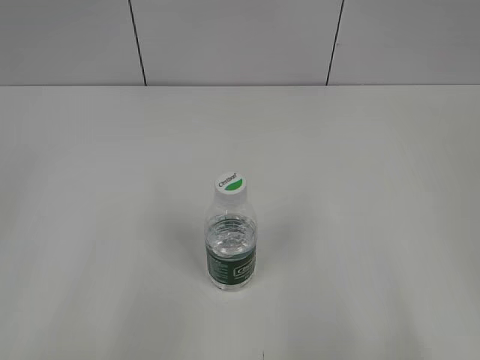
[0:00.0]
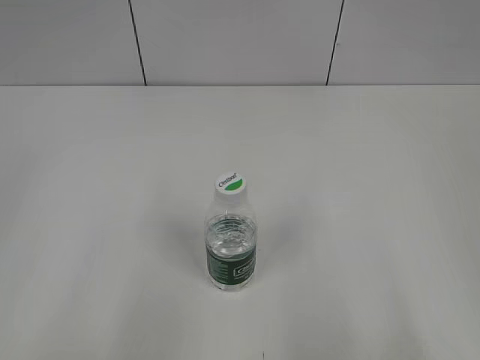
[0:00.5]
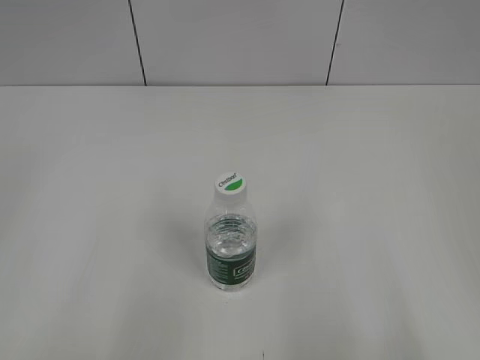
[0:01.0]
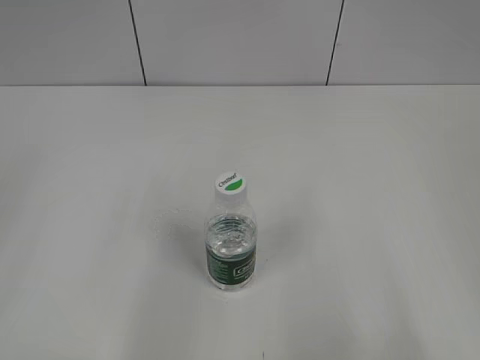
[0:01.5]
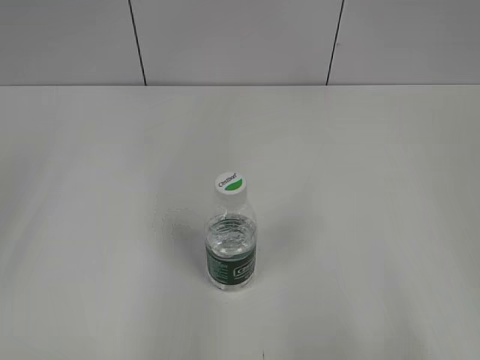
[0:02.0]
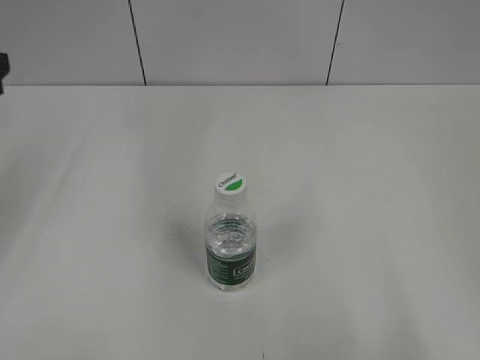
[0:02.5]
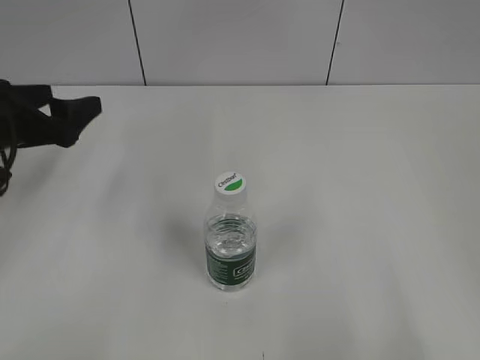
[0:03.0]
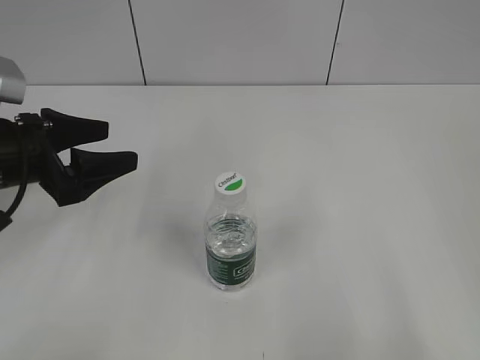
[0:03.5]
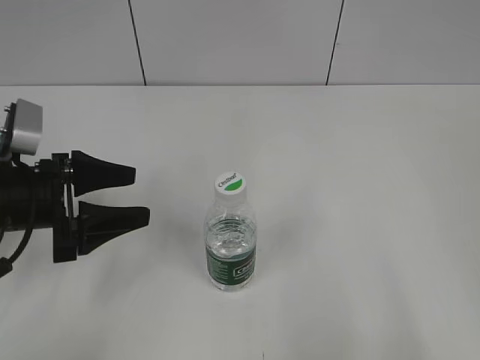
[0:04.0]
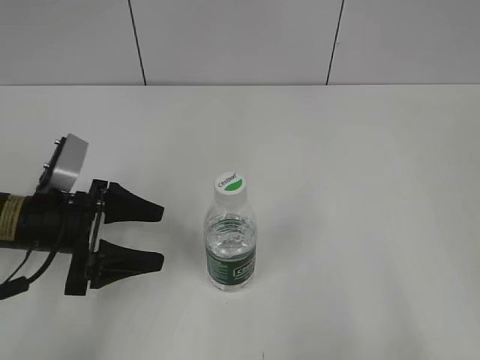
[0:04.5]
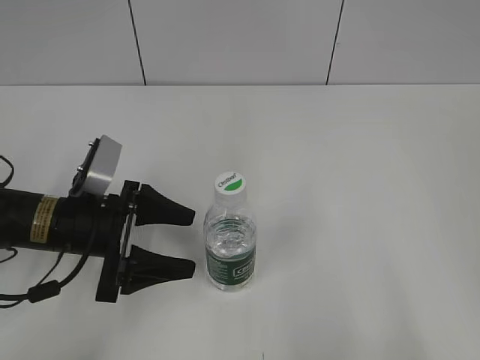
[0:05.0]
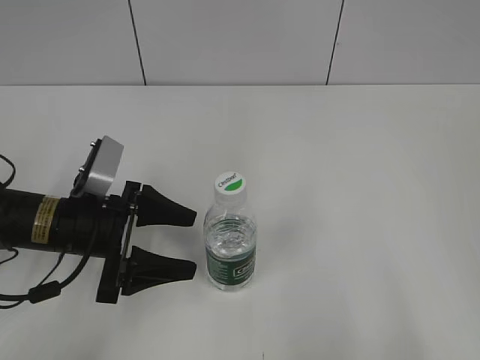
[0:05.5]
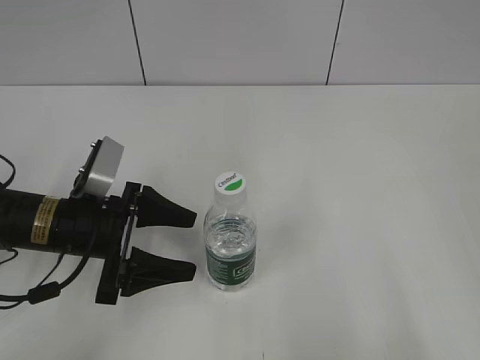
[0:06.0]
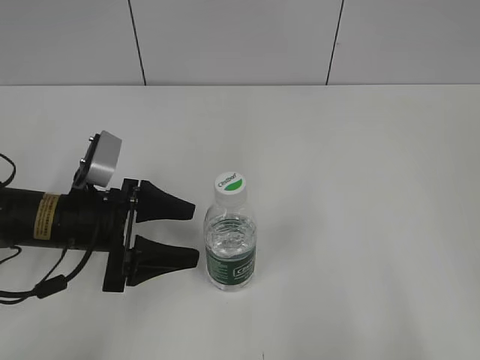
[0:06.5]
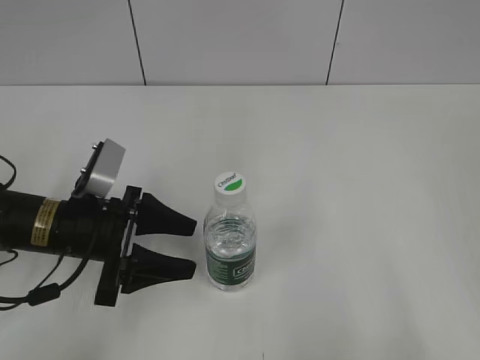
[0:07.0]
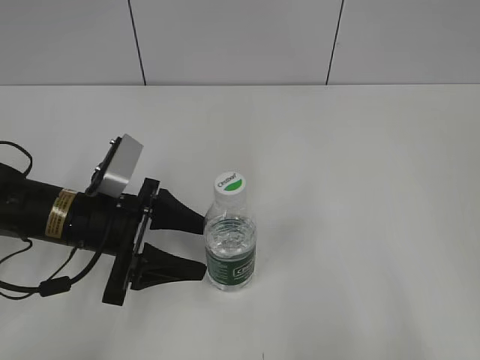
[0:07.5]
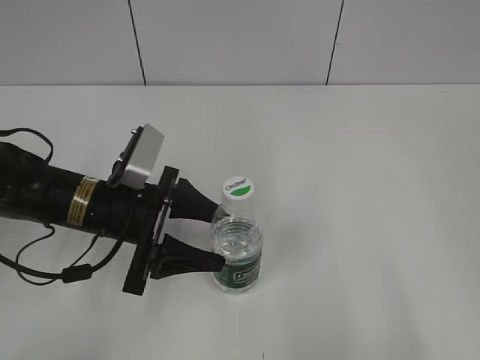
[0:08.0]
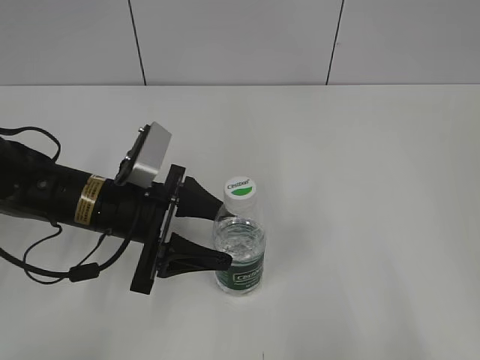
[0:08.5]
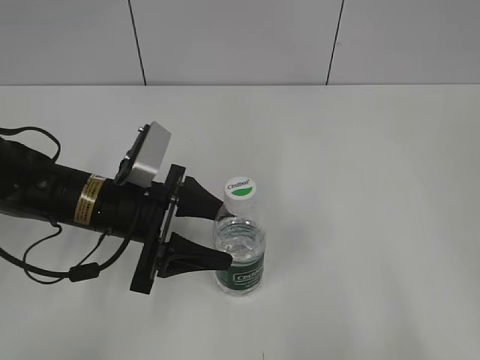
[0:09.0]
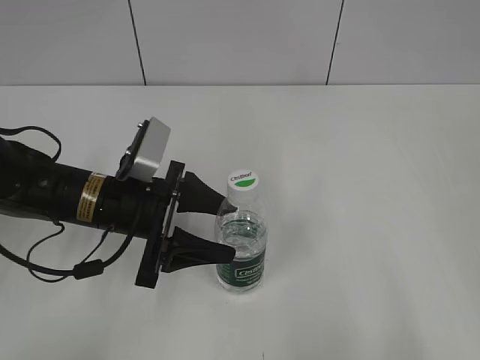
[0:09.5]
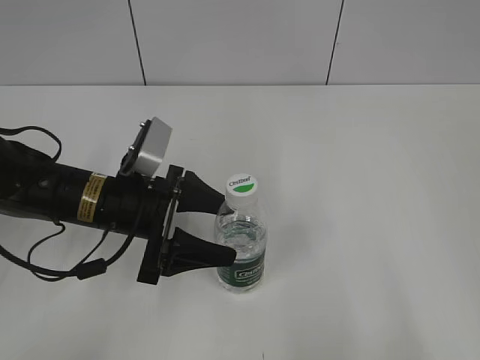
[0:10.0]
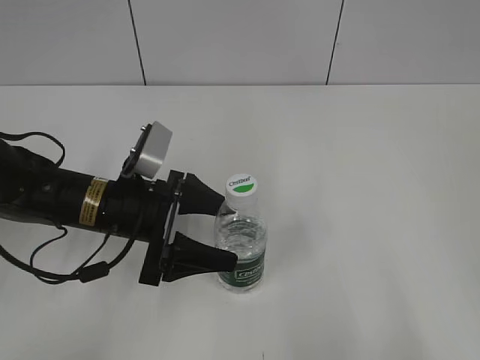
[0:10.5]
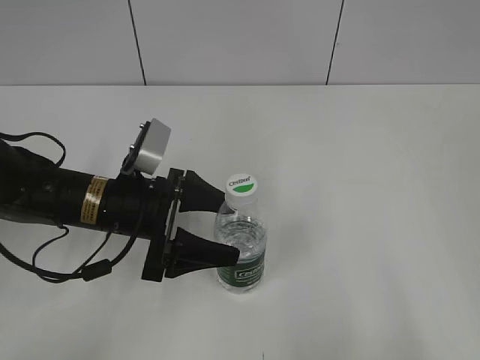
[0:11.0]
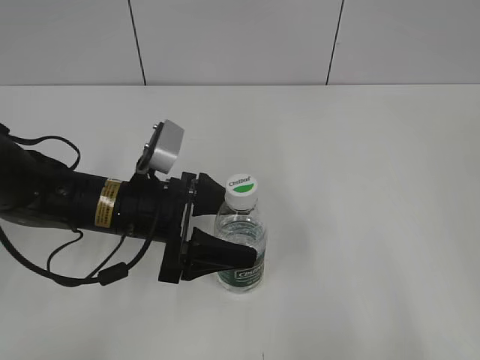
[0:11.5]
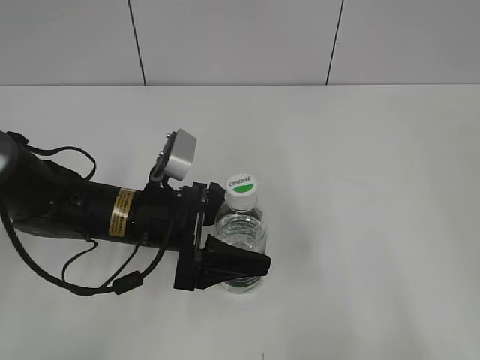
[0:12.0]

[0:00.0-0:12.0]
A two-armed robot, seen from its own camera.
0:02.0 to 0:04.0: The left gripper shifts roughly 20 cm downward and forward.
0:04.0 to 0:06.0: The left gripper moves to the right, about 5 cm.
0:06.0 to 0:10.0: The grippers make only small movements.
0:10.0 to 0:12.0: There are only small adjustments of the grippers.

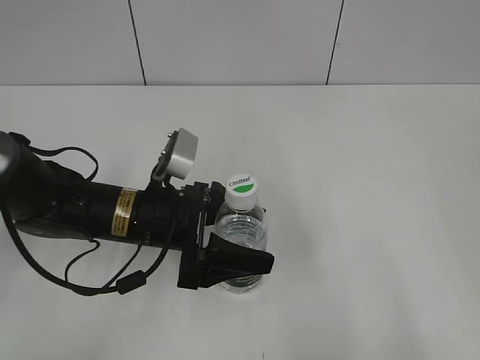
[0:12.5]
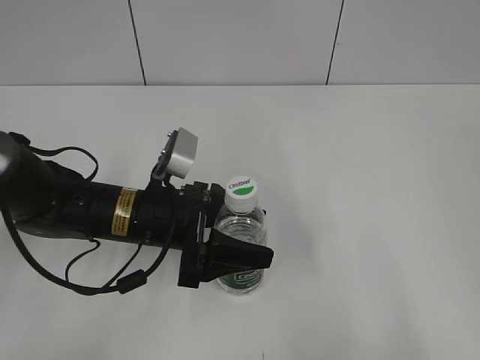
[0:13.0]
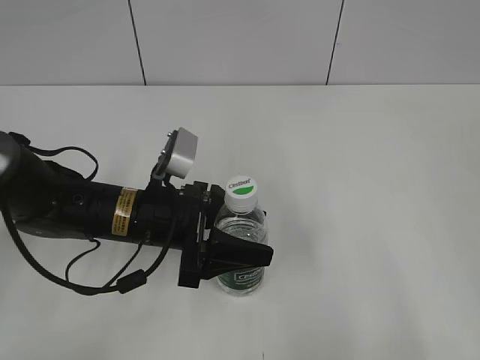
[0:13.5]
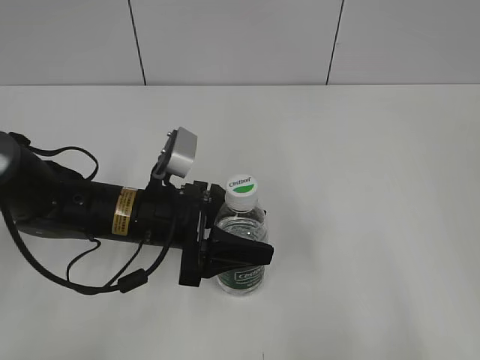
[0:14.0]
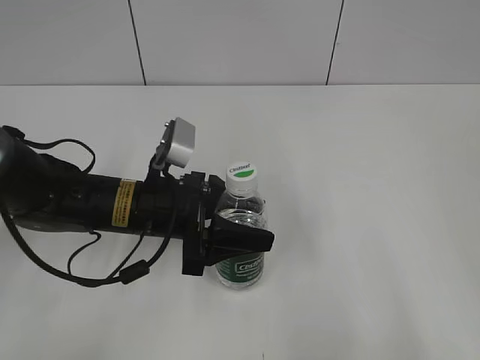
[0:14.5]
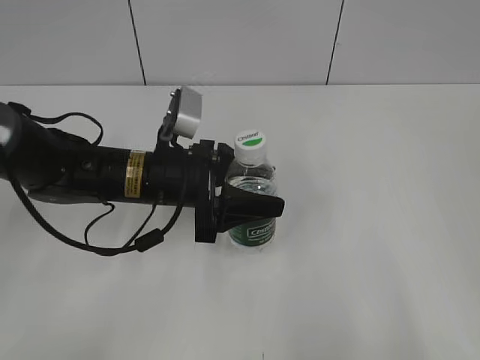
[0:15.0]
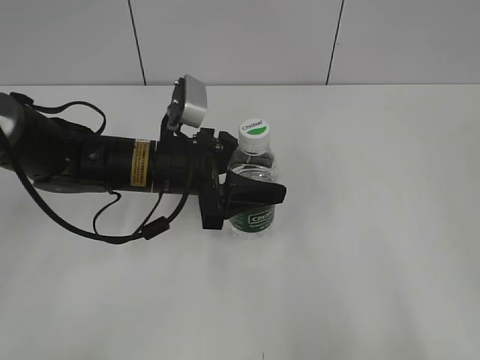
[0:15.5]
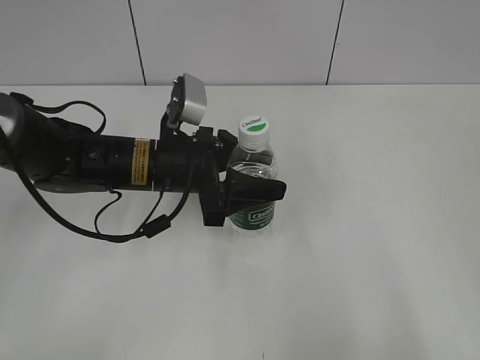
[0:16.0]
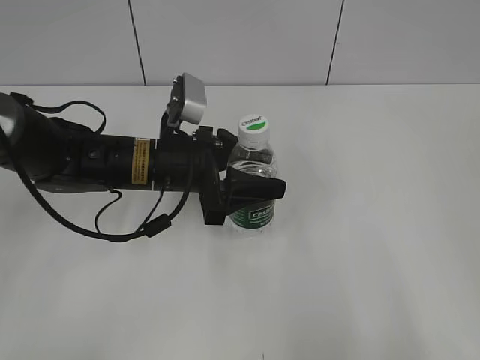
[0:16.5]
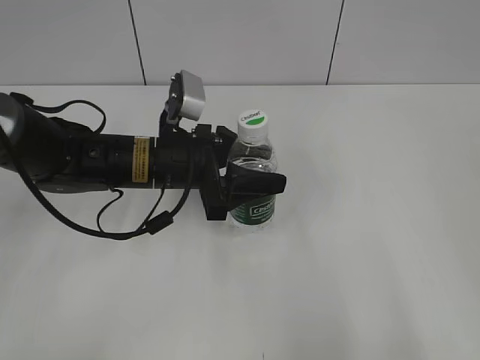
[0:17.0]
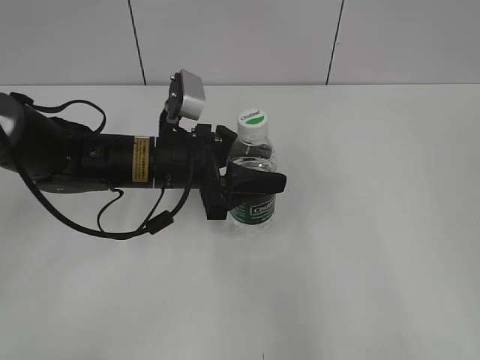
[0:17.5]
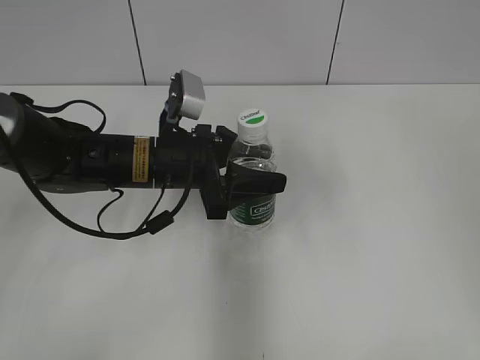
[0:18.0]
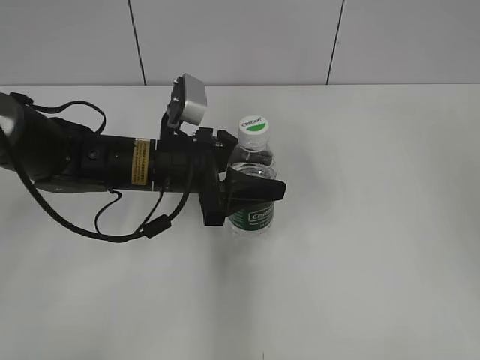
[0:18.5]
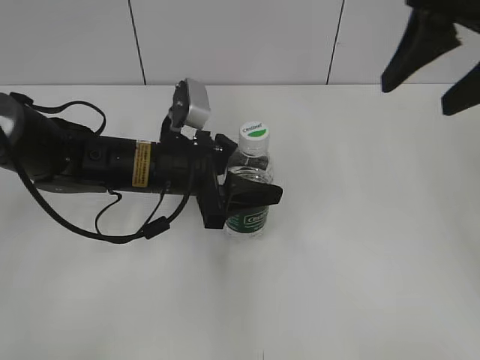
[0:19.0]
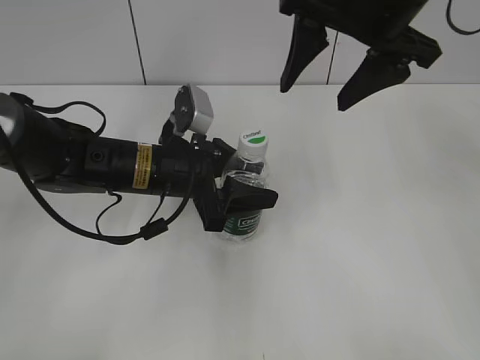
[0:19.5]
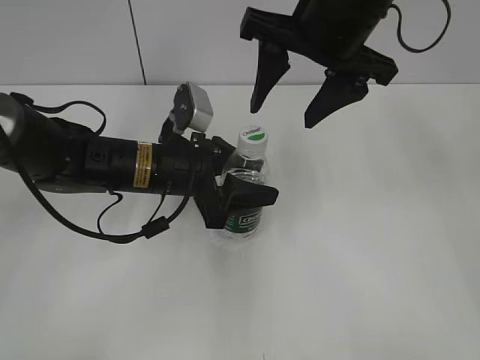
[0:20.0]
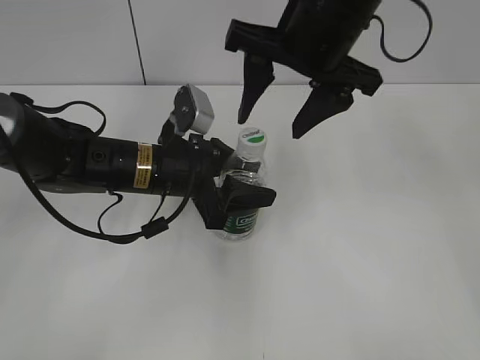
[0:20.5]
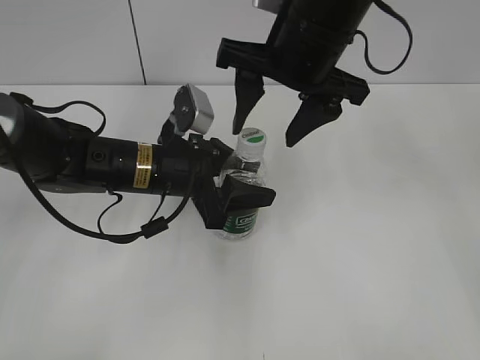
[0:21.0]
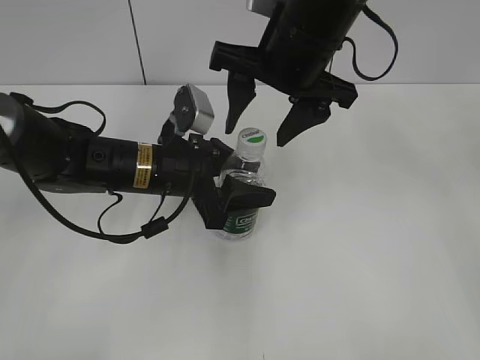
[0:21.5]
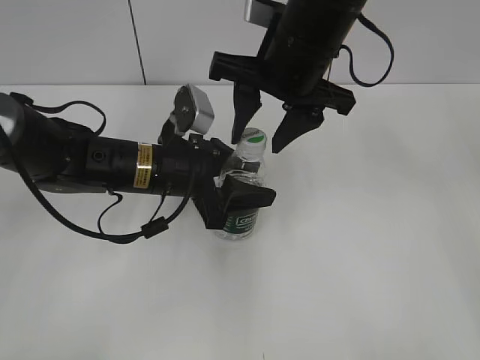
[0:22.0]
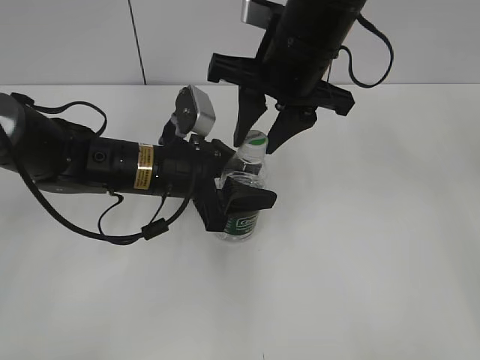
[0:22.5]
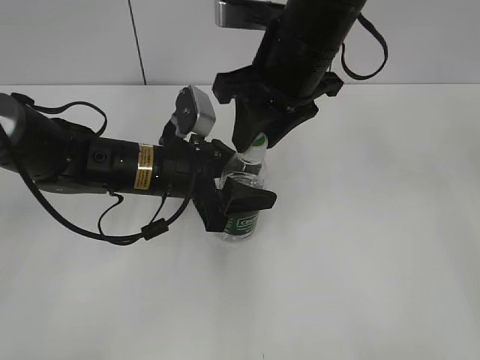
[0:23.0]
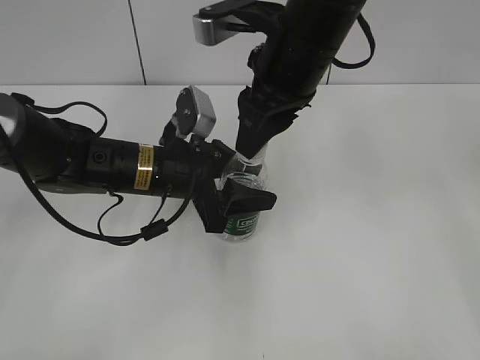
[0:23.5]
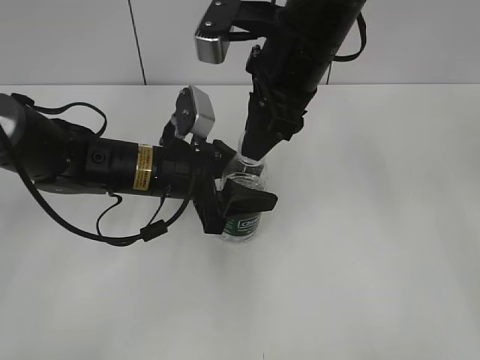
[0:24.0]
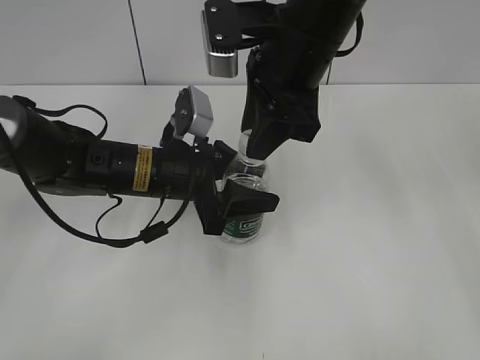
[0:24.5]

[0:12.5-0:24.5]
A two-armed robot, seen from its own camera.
Step, 0:14.0 to 0:19.0: Lift the bottle and move it to the center of the table with the left gripper.
0:12.5 to 0:14.5: The left gripper closes.
0:16.5 to 0:18.5: The right gripper heads forward, covering some 20 cm.
0:18.5 to 0:20.5: The right gripper goes roughly 25 cm to the left and forward.
0:20.5 to 0:22.5: The right gripper closes.

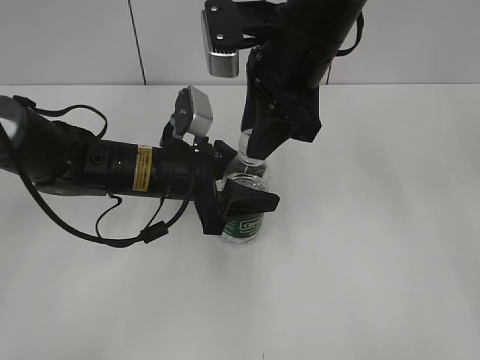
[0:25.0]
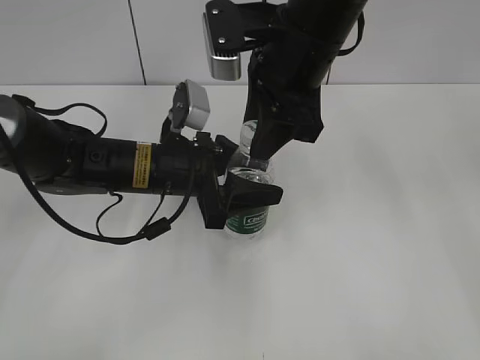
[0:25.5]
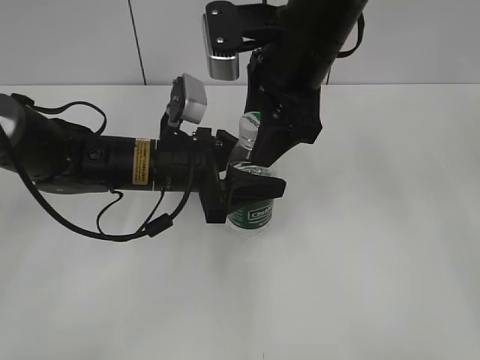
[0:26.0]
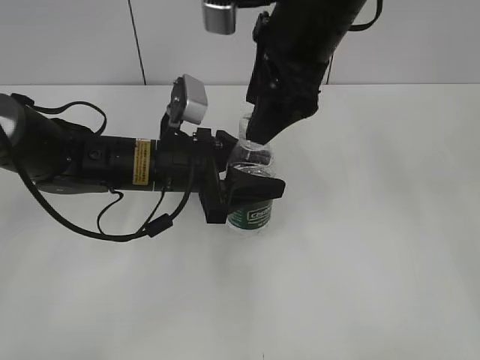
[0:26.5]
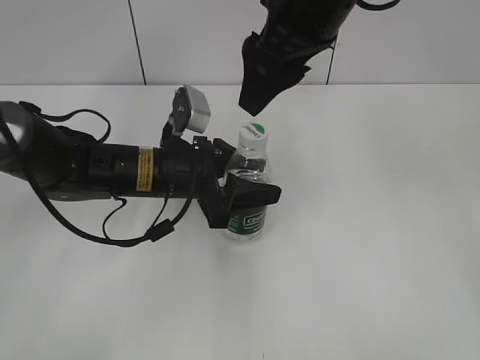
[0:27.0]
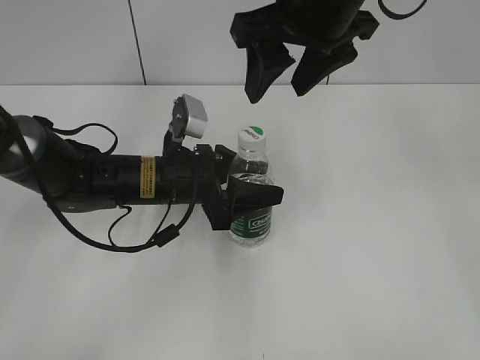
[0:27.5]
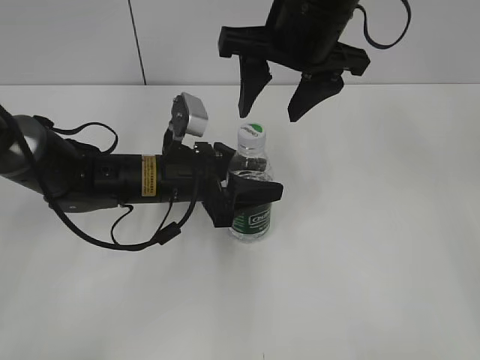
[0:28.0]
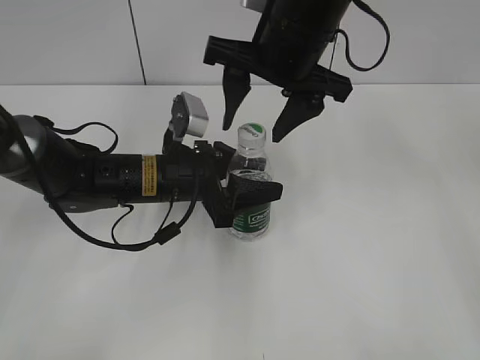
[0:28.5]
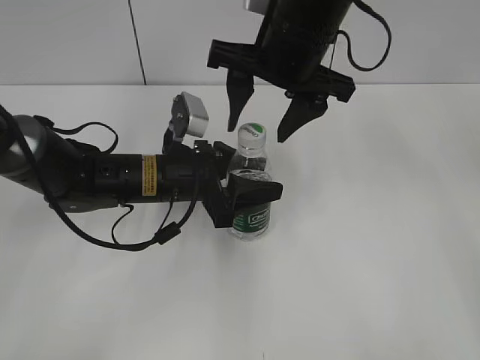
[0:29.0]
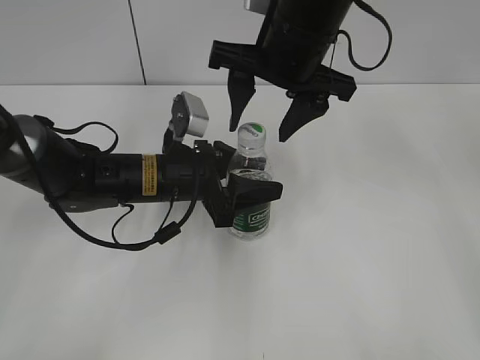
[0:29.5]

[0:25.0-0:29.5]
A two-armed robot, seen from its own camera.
0:25.0 to 0:27.0: The right gripper is displaced upward by about 5 cm, and opens.
0:27.0 to 0:29.5: The right gripper moves some 5 cm.
